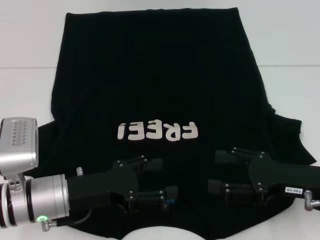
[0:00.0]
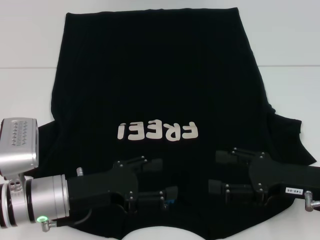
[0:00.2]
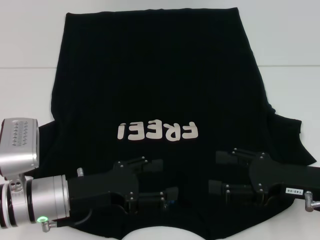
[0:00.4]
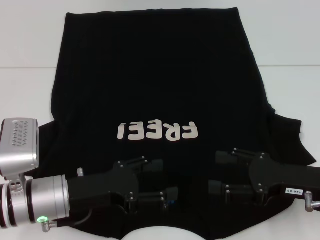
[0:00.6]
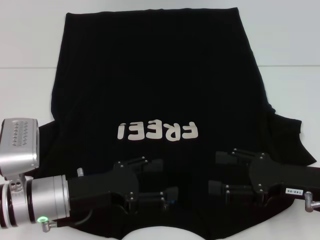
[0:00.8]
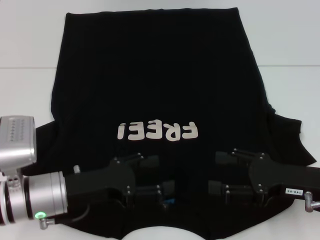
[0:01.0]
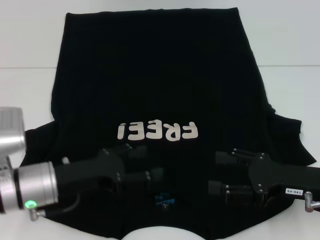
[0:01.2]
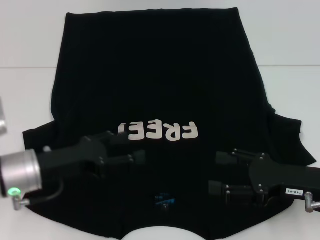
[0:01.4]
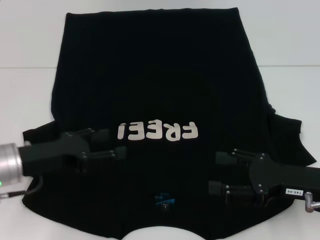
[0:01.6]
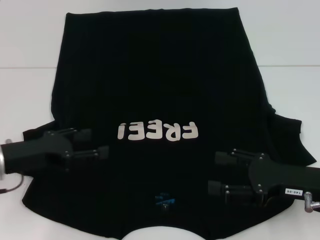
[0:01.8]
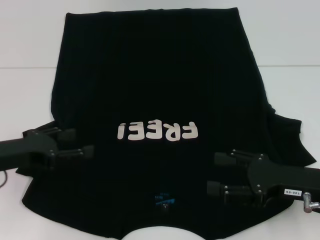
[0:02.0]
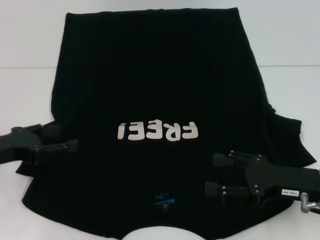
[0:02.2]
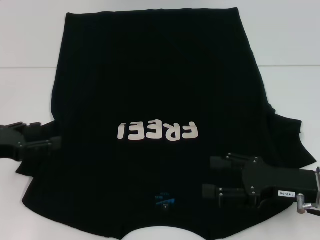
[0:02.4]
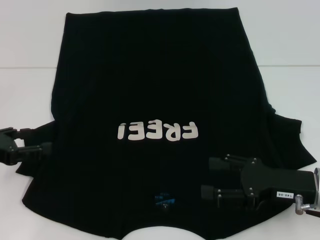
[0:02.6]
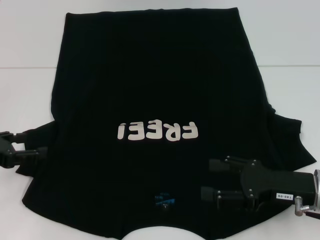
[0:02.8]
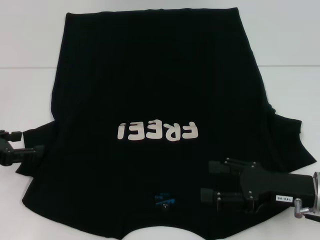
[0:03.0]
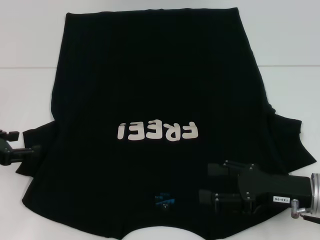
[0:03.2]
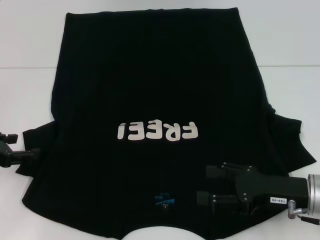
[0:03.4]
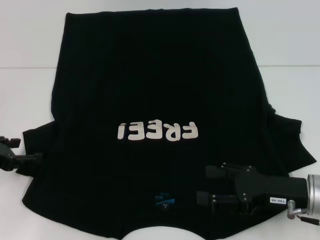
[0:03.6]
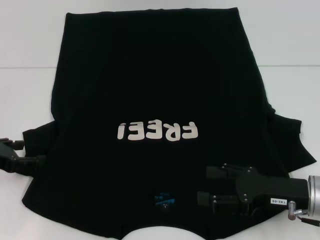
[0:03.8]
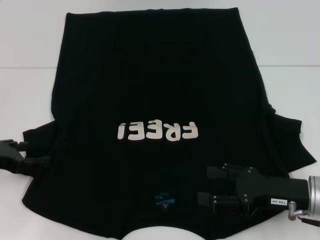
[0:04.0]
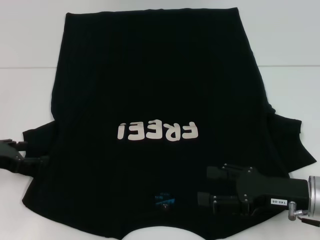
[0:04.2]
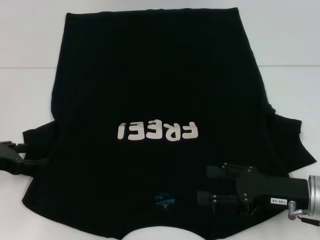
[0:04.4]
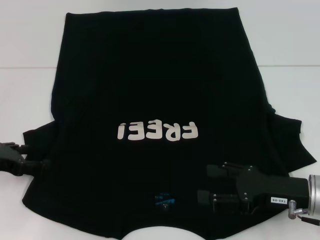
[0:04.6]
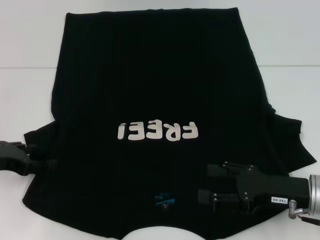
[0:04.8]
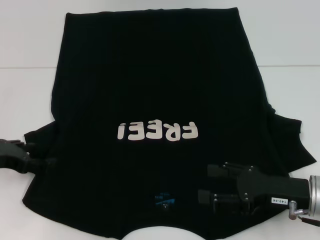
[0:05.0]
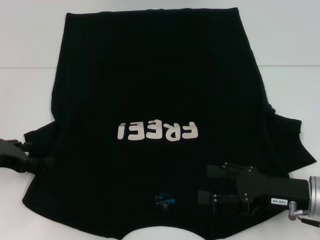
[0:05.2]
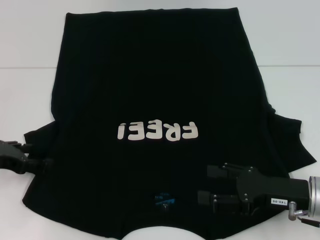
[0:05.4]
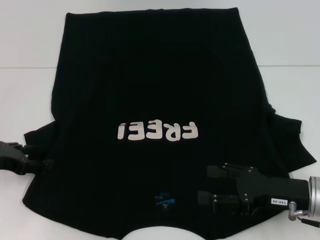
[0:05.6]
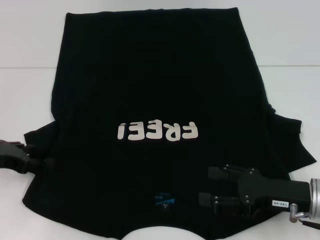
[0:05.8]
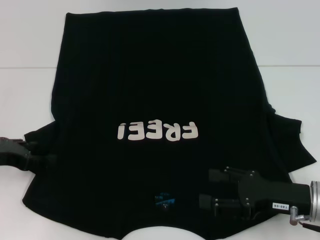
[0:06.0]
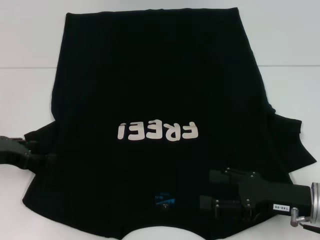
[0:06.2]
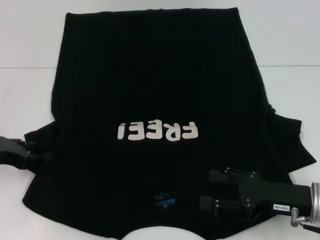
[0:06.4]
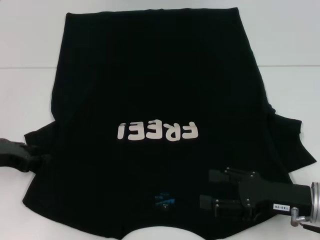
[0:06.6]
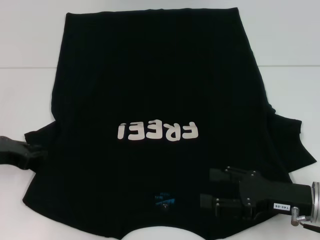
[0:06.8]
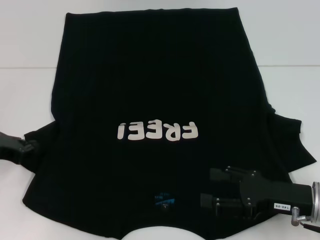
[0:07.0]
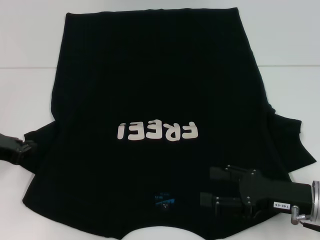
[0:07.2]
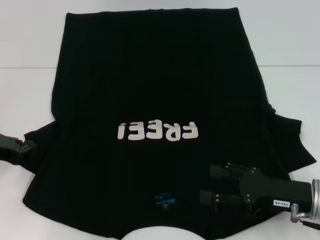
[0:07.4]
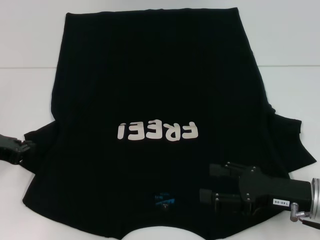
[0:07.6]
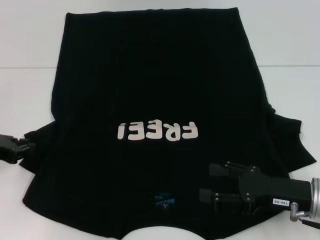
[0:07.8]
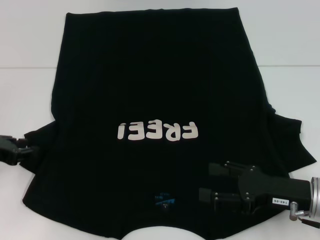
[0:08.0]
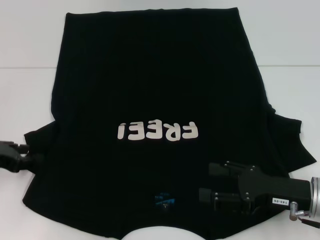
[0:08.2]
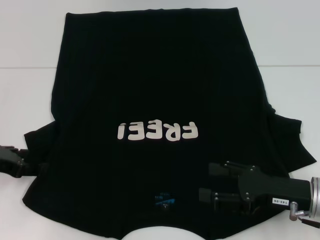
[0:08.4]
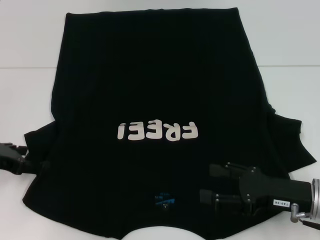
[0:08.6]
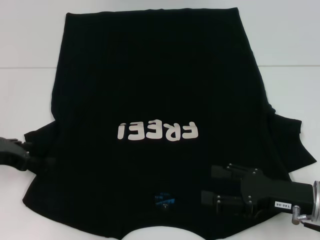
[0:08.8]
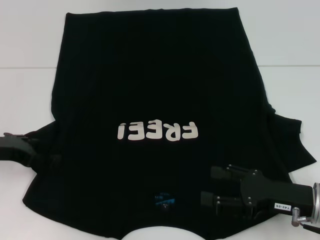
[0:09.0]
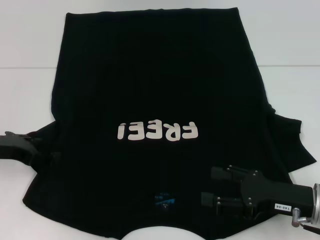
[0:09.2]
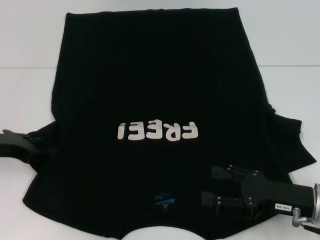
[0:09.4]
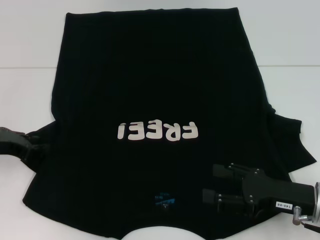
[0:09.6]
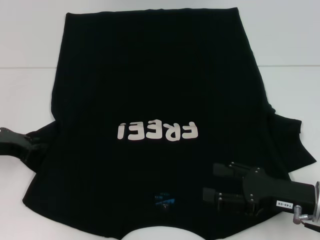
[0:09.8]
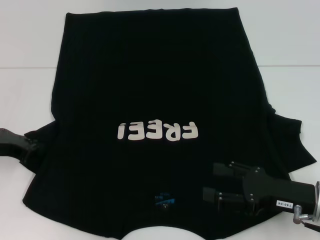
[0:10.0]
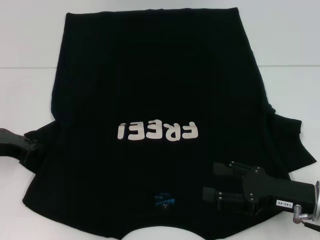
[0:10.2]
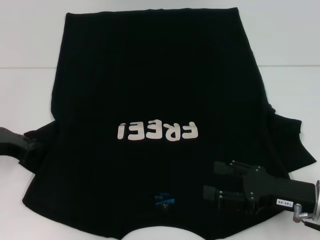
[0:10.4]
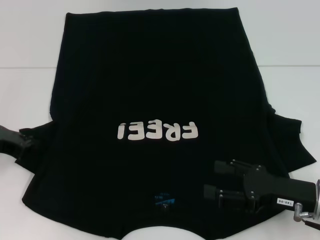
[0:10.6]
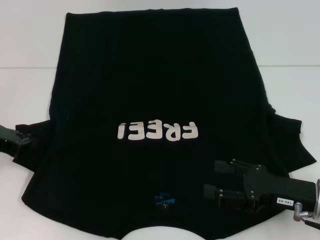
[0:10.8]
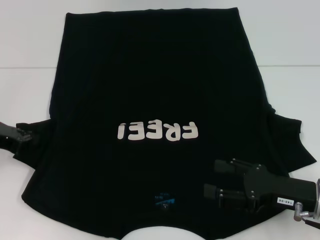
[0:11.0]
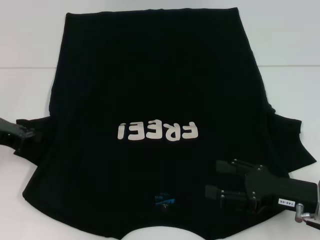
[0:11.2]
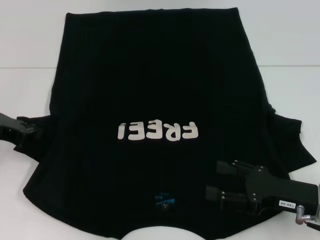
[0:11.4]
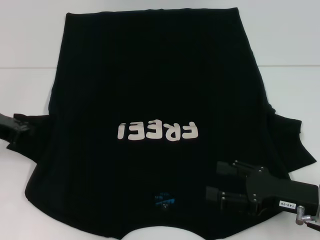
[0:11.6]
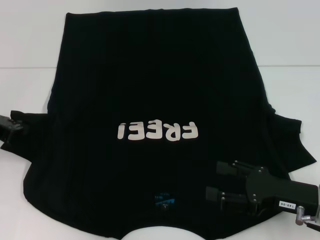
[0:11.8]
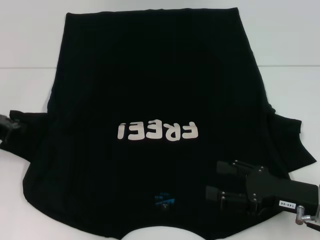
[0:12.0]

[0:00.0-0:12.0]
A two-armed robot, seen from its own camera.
0:00.0 to 0:01.6: The left gripper moves to the left, some 5 cm.
0:01.6 to 0:03.0: The left gripper is displaced to the left by approximately 10 cm.
0:03.0 to 0:06.0: The grippers move only a little.
0:09.0 to 0:10.4: The left gripper closes.
0:10.4 to 0:12.0: The left gripper travels upward by approximately 5 cm.

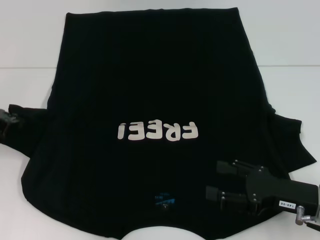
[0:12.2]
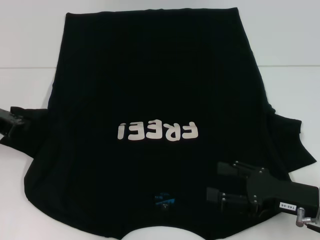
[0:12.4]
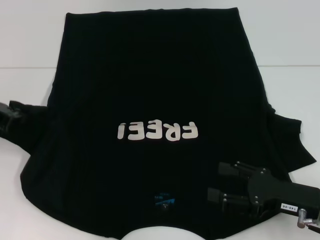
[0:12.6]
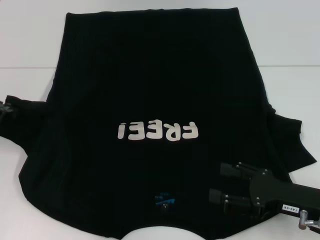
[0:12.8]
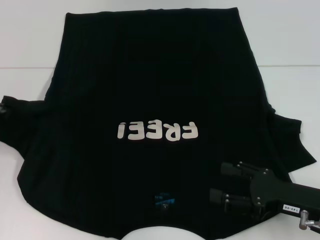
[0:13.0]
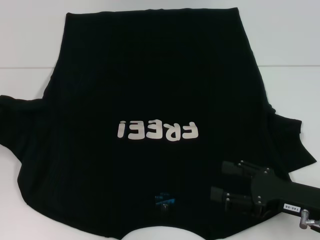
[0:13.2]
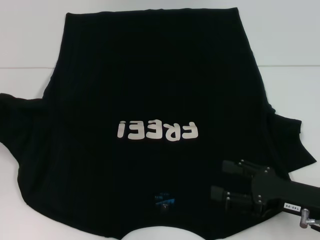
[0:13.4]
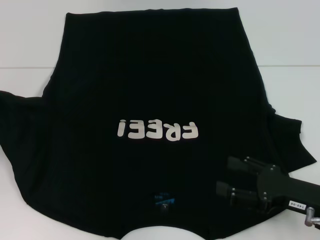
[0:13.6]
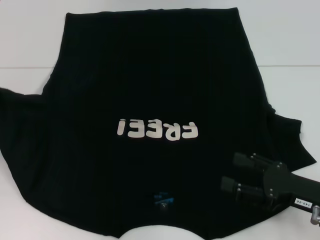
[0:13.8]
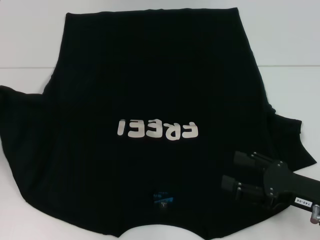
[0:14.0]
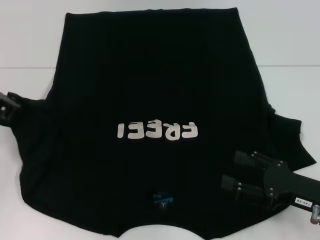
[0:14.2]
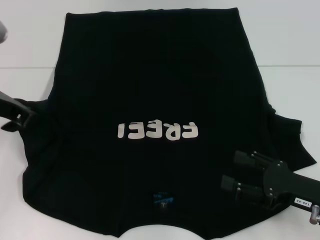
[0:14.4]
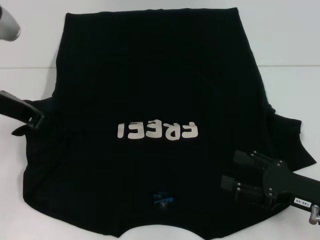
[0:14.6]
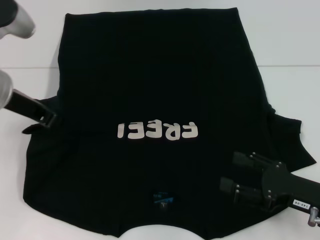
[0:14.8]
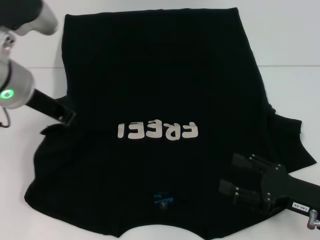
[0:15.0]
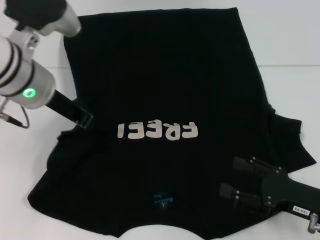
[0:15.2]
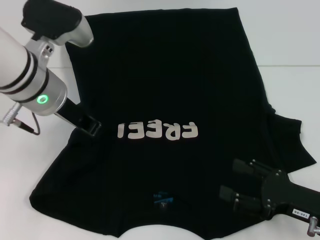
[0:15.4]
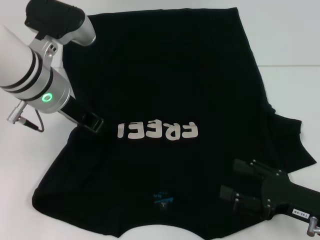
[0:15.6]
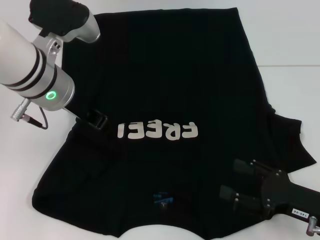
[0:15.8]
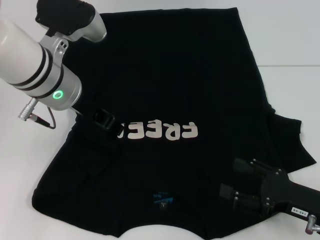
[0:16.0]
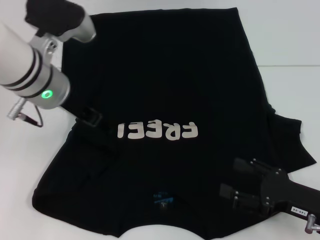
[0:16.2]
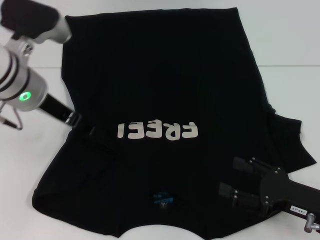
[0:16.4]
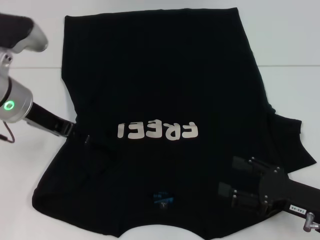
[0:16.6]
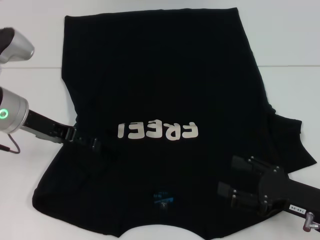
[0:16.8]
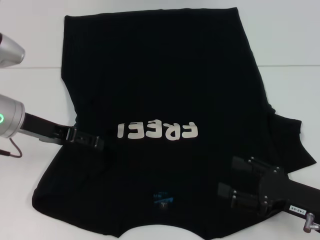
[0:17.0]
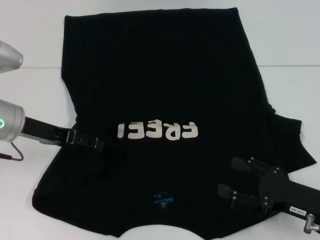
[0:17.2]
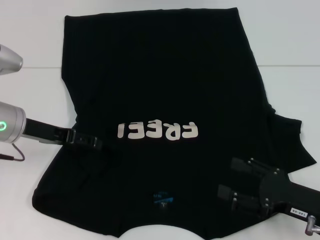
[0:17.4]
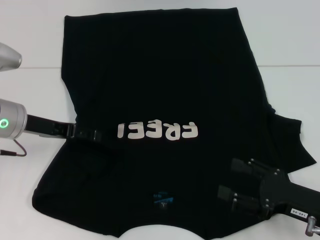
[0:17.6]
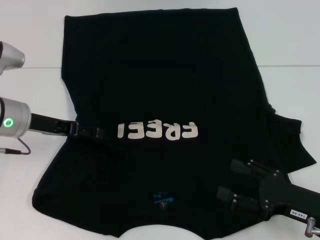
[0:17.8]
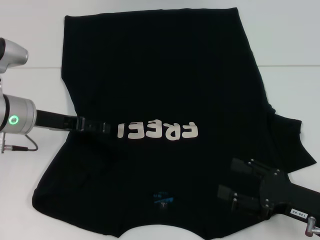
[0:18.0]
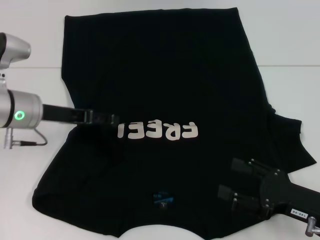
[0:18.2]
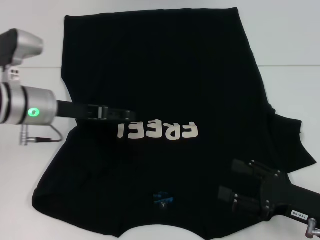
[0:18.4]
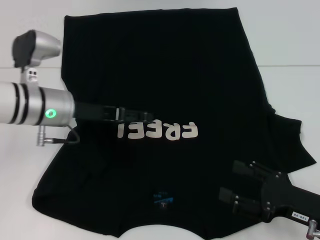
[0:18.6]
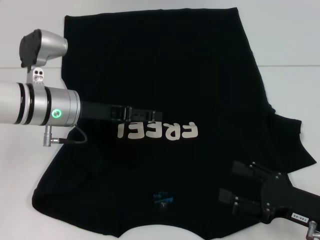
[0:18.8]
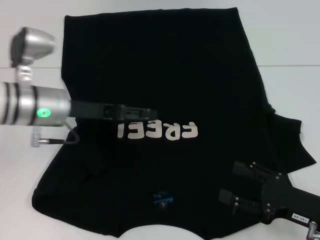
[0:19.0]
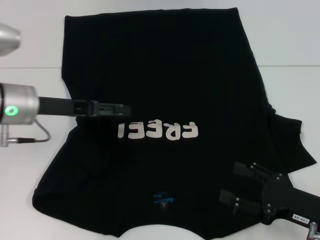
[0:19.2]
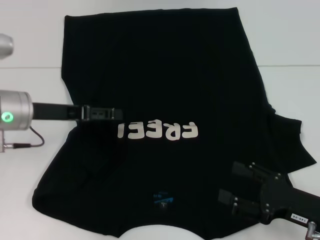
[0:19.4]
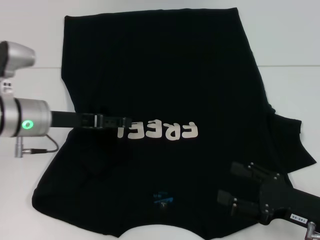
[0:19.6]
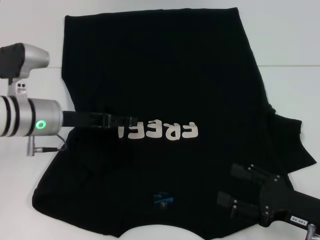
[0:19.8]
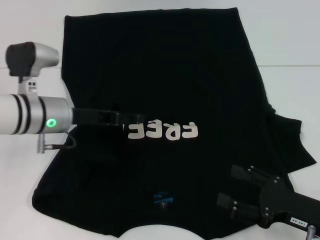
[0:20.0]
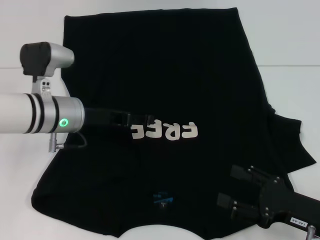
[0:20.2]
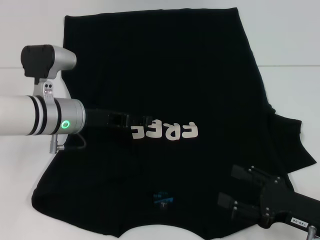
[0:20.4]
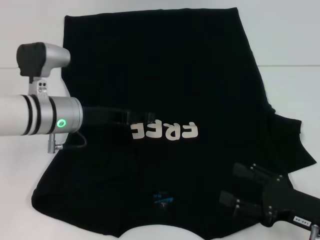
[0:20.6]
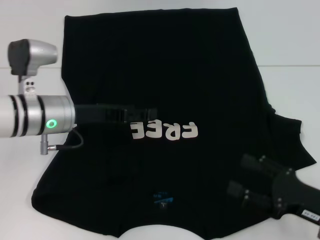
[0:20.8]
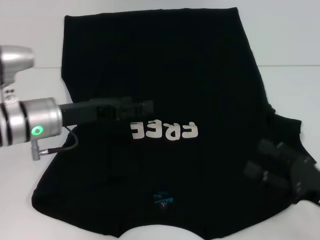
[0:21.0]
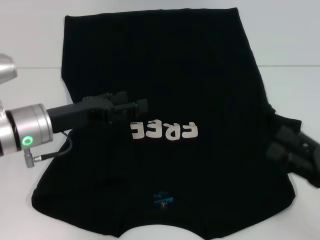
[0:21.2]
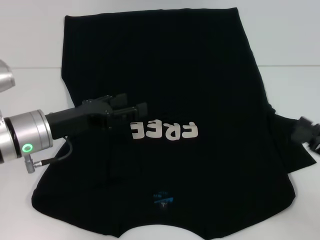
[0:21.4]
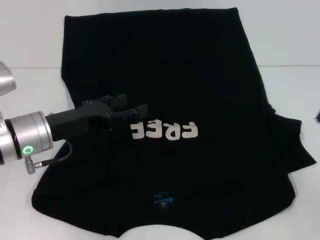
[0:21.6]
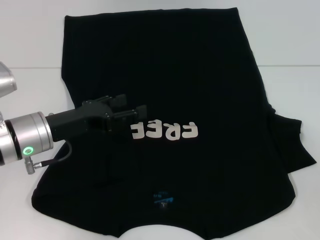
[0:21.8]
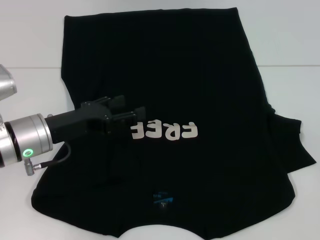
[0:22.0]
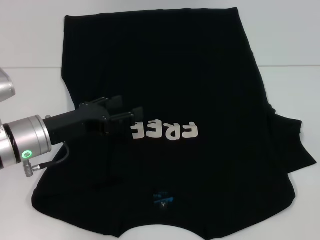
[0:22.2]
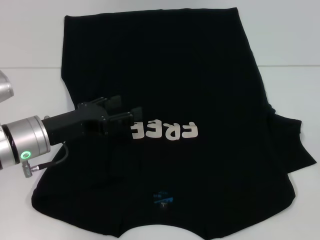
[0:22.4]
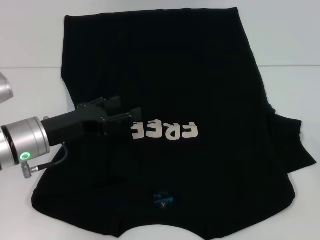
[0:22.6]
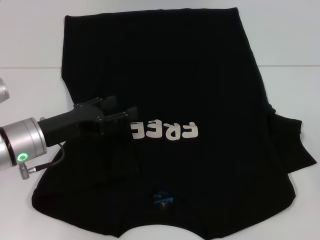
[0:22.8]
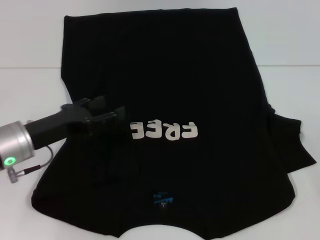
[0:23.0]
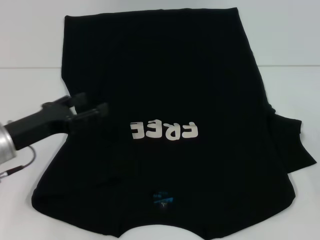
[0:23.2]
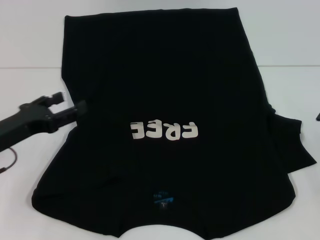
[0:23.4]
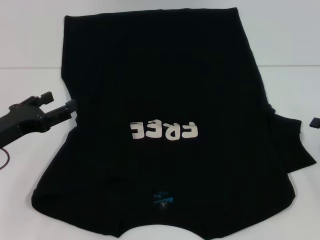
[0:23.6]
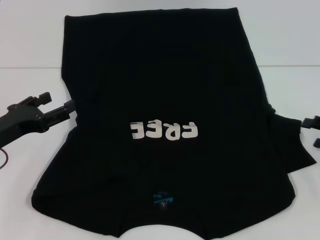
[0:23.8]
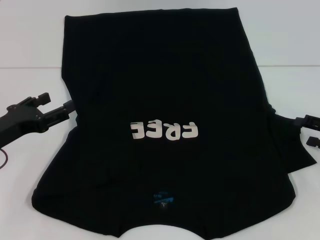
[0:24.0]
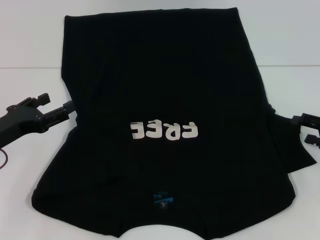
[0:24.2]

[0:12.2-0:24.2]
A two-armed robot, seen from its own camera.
Step, 0:12.2 to 0:16.4: Fold the bottom left sleeve with your left hand.
0:12.2 to 0:13.8: The grippers move only a little.
0:13.8 to 0:15.2: The left gripper is displaced to the right by about 15 cm.
0:15.2 to 0:16.6: The left gripper changes place by approximately 5 cm, and opens its fingers.
0:16.6 to 0:18.2: The left gripper shifts about 5 cm downward.
0:18.2 to 0:19.8: The grippers make only small movements.
0:19.8 to 0:21.2: The right gripper moves roughly 5 cm.
0:21.2 to 0:22.6: The right gripper shifts about 15 cm to the right and forward.
0:22.6 to 0:24.2: The left gripper moves to the left, approximately 10 cm. The right gripper moves to the left and forward, roughly 10 cm.
